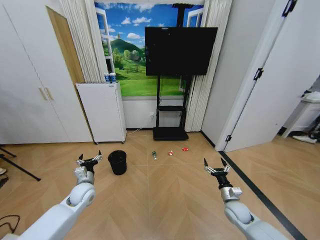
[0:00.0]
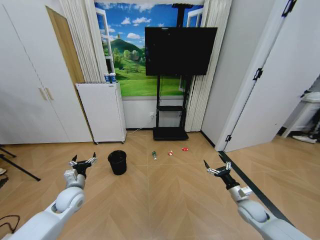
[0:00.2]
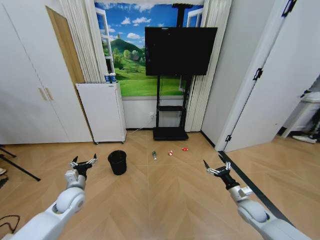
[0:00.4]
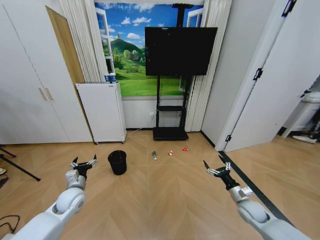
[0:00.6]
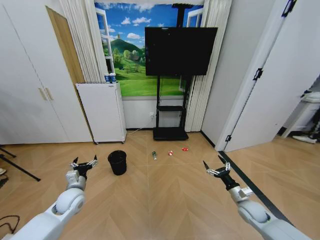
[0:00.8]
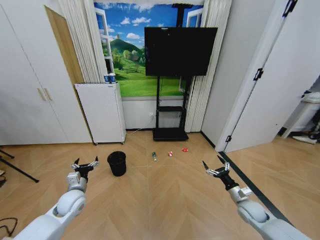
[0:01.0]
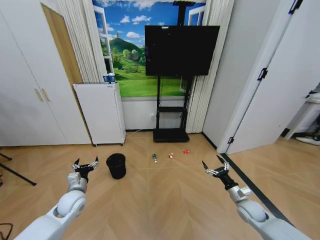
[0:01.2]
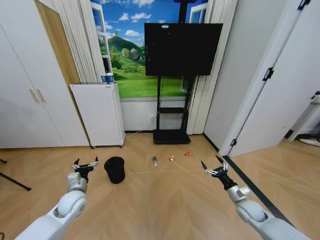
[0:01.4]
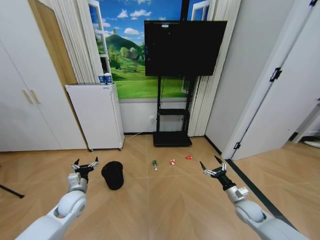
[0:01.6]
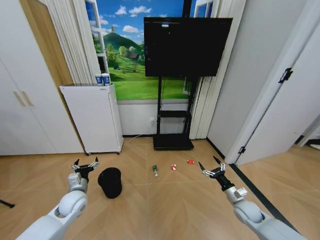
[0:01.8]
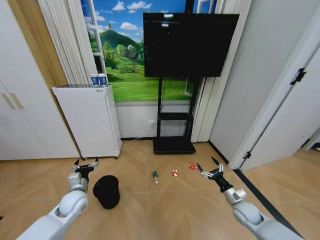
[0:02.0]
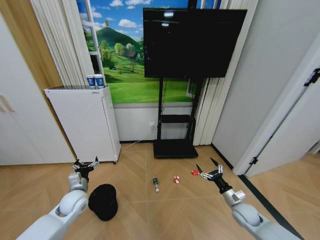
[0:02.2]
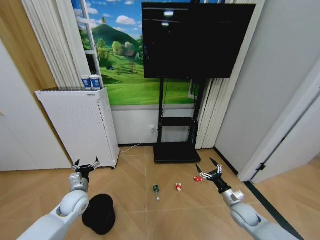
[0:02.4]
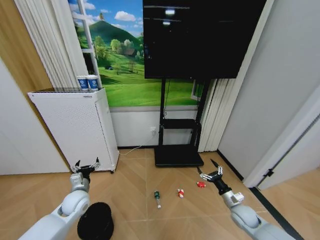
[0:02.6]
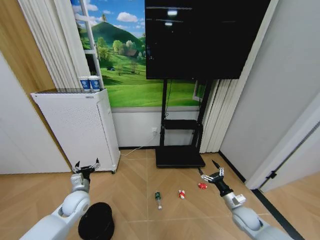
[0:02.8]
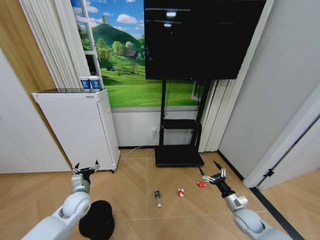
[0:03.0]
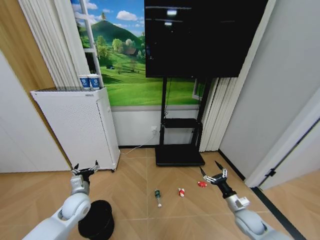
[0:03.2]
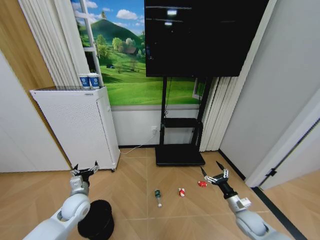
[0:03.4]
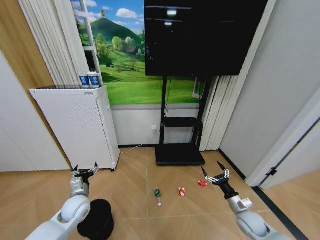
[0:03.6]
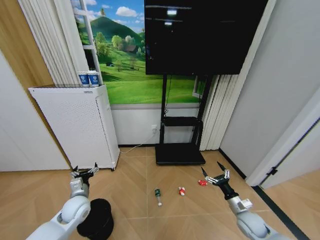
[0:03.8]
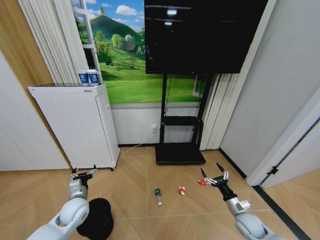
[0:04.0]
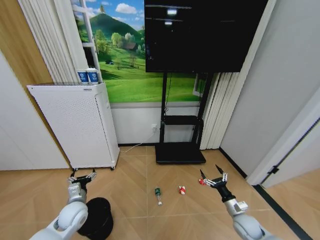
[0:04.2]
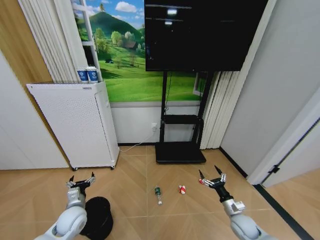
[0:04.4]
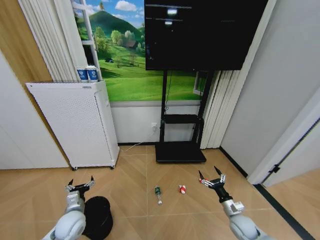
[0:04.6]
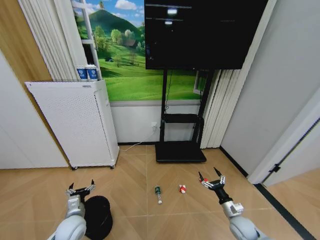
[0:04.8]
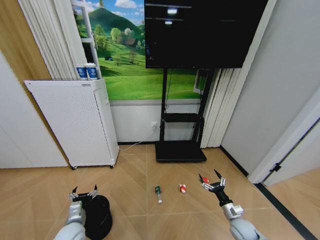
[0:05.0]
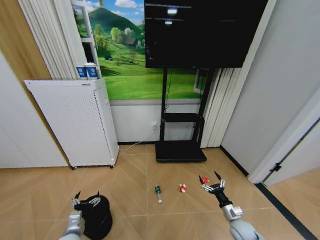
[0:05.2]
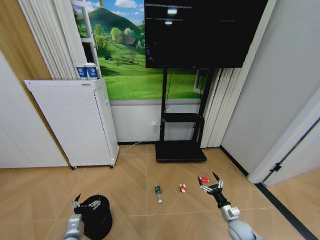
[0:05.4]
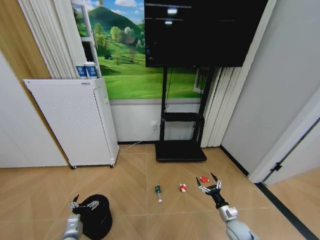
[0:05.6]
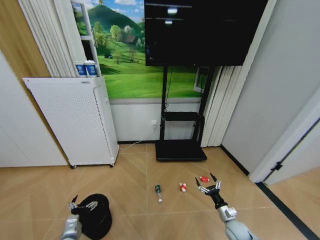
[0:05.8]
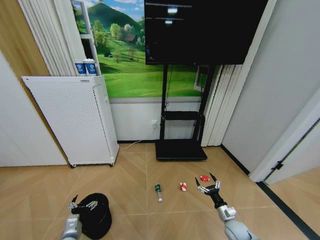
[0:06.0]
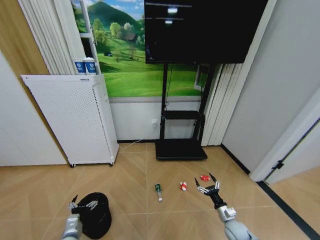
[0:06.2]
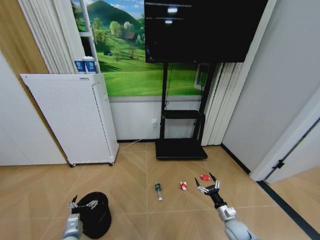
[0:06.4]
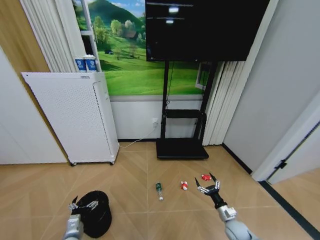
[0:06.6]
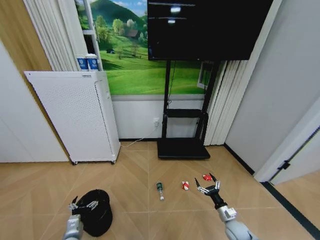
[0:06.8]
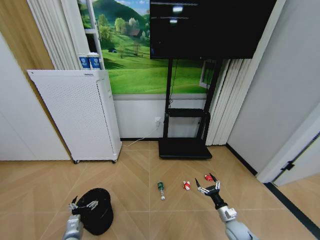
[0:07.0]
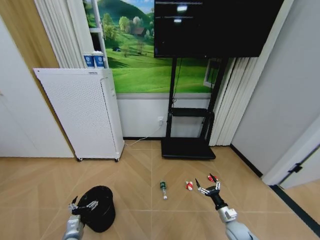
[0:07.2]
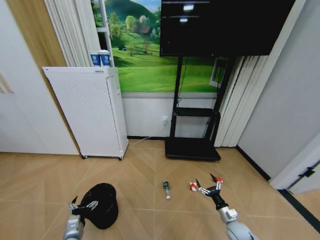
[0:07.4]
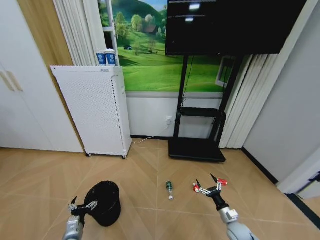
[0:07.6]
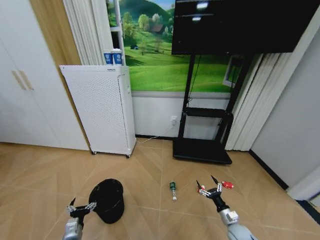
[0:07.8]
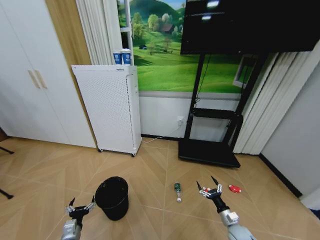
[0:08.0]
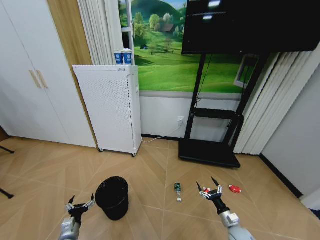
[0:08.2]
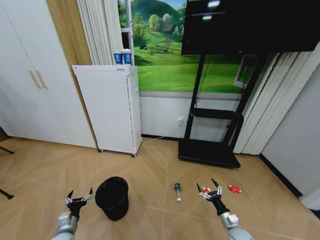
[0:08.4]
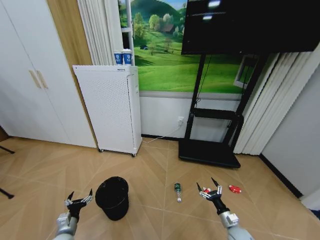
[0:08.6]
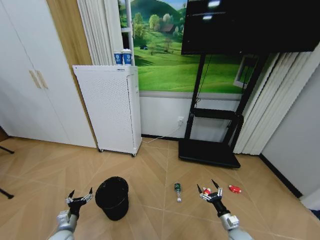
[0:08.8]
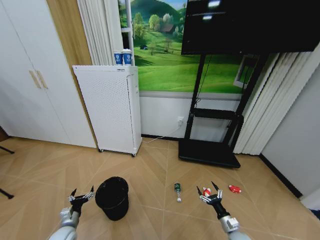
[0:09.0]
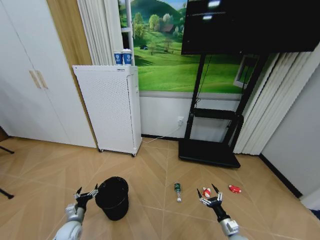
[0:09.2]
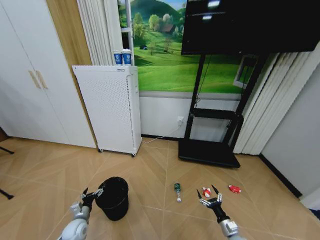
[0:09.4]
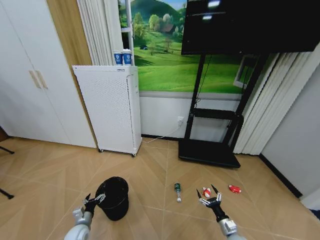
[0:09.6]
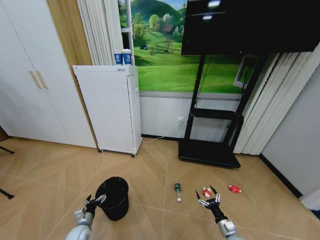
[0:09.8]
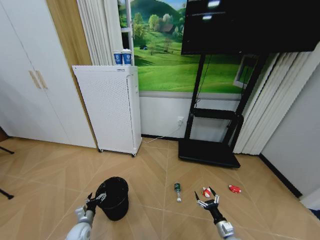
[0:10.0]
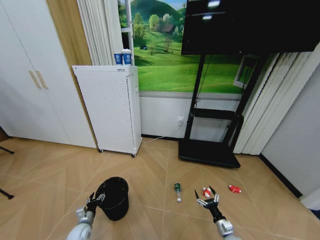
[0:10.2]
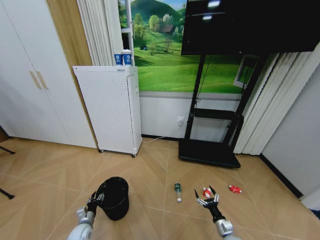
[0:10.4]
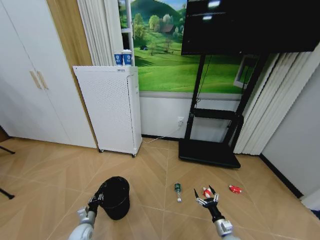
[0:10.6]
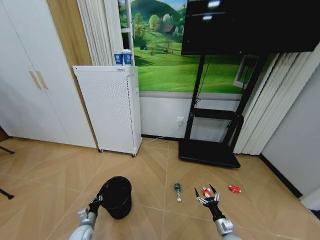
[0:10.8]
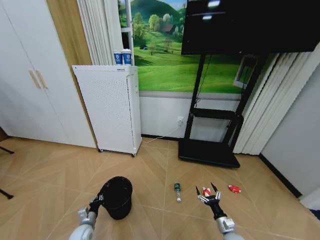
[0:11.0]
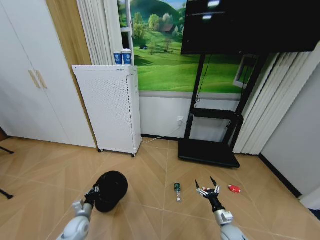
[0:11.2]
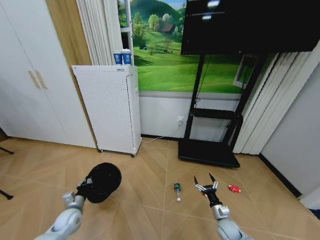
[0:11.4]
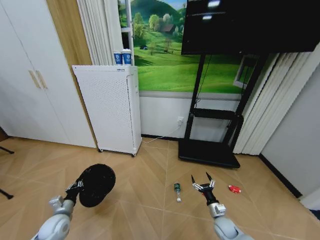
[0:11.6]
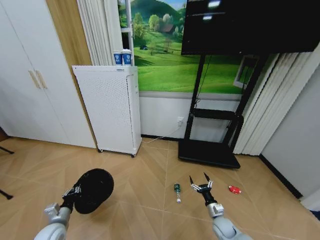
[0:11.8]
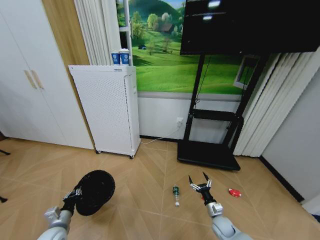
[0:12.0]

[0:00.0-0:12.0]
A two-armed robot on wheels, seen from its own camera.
Task of the whole recording: Pick up the trash bin and place the garbage on the floor into it.
0:03.0 to 0:04.4: The left gripper changes place by some 5 cm.
0:04.4 to 0:06.0: The right gripper goes roughly 5 cm downward; the left gripper travels backward and downward by approximately 10 cm.
0:07.6 to 0:09.0: The left gripper goes roughly 5 cm to the left.
0:09.0 to 0:10.4: The left gripper moves downward, some 5 cm, and closes its fingers.
0:10.4 to 0:12.0: The left gripper shifts some 15 cm upward and to the left, and closes. The right gripper goes about 5 cm forward.

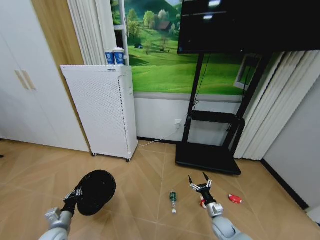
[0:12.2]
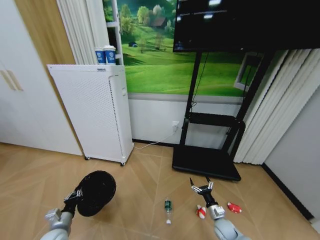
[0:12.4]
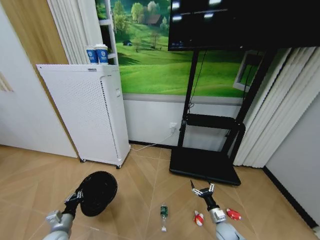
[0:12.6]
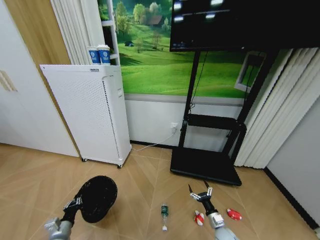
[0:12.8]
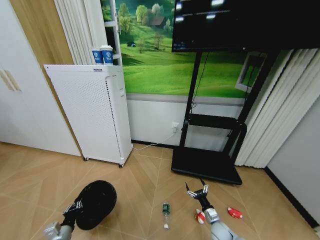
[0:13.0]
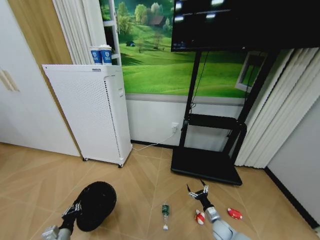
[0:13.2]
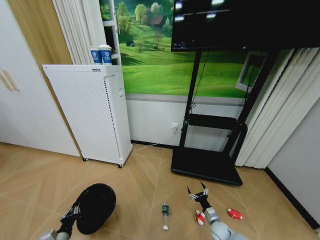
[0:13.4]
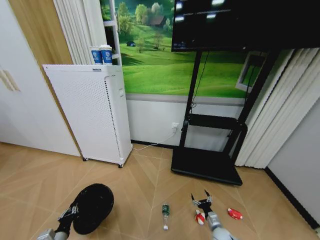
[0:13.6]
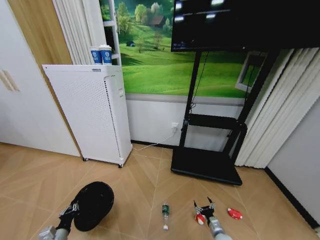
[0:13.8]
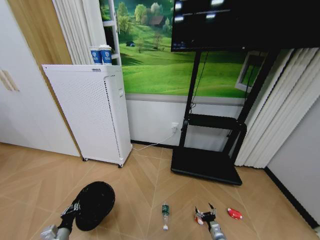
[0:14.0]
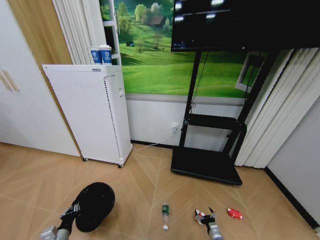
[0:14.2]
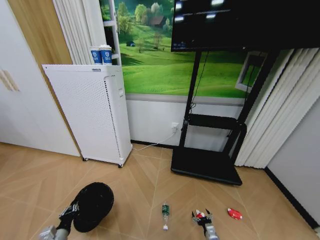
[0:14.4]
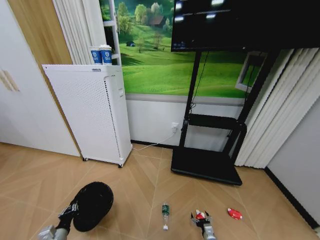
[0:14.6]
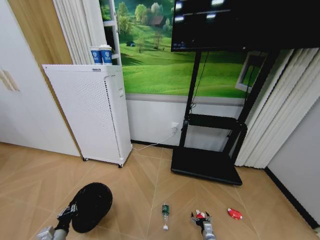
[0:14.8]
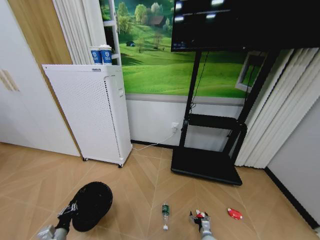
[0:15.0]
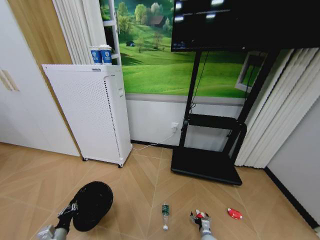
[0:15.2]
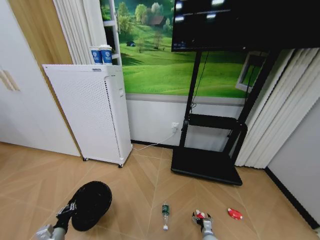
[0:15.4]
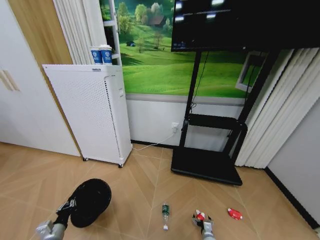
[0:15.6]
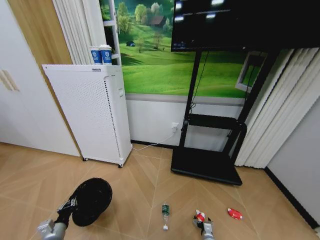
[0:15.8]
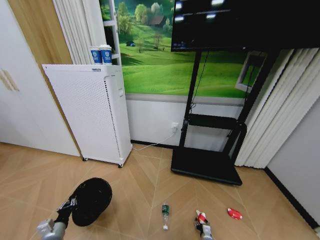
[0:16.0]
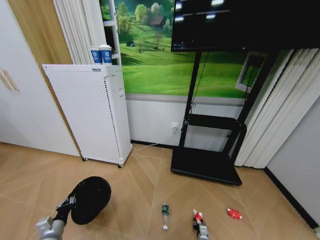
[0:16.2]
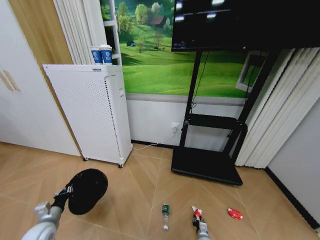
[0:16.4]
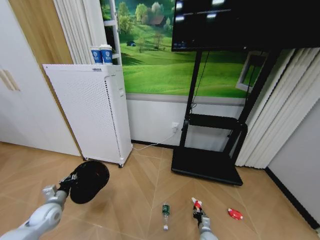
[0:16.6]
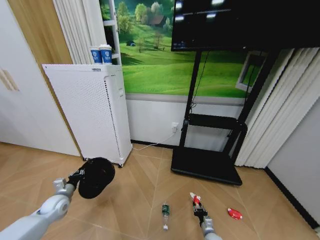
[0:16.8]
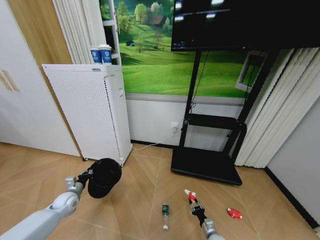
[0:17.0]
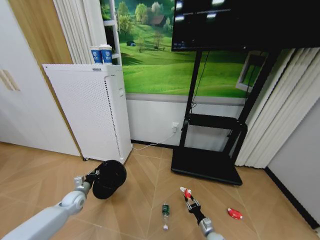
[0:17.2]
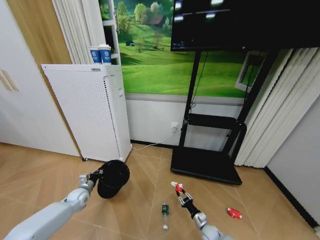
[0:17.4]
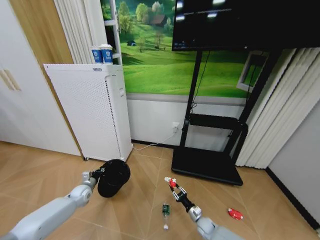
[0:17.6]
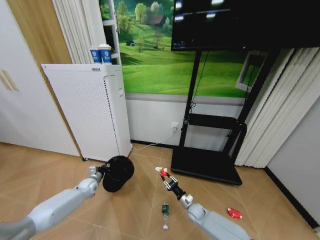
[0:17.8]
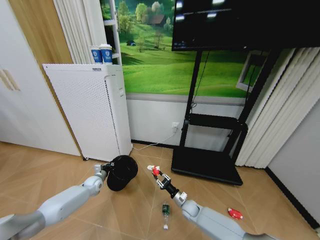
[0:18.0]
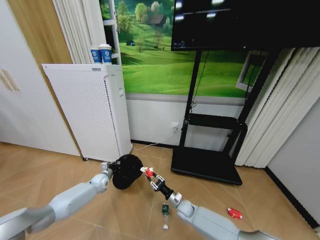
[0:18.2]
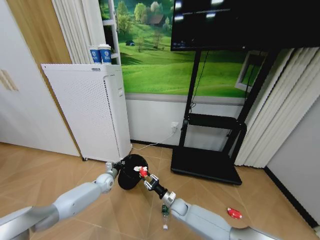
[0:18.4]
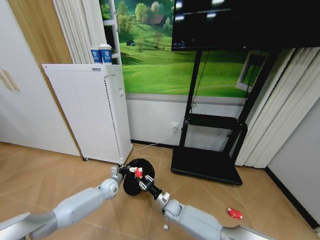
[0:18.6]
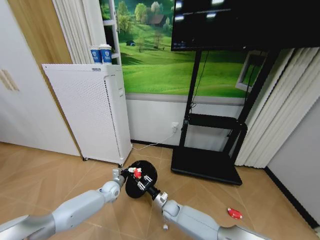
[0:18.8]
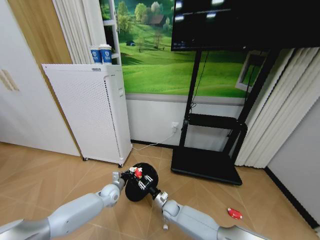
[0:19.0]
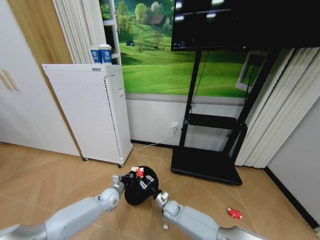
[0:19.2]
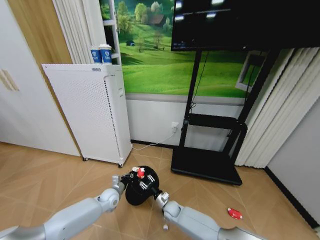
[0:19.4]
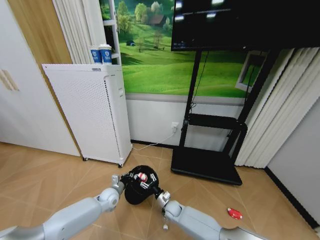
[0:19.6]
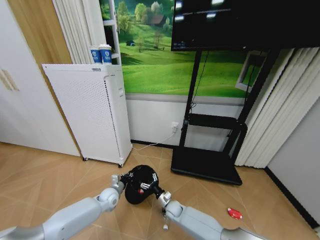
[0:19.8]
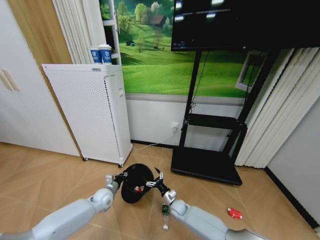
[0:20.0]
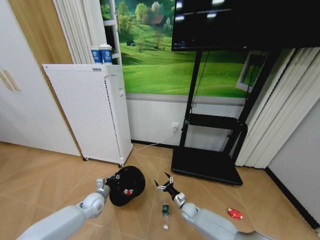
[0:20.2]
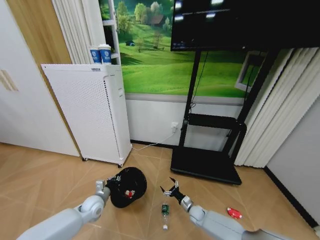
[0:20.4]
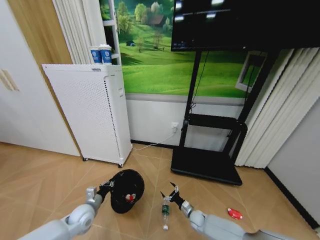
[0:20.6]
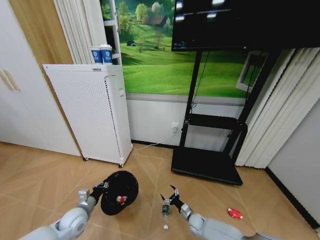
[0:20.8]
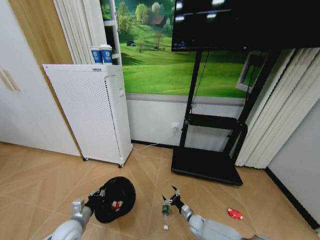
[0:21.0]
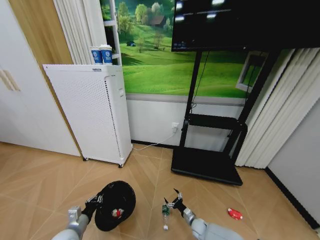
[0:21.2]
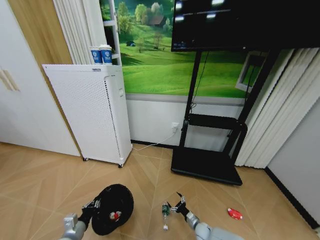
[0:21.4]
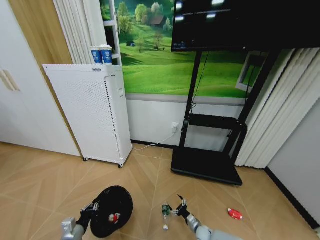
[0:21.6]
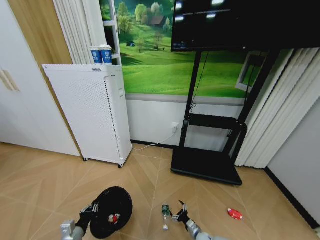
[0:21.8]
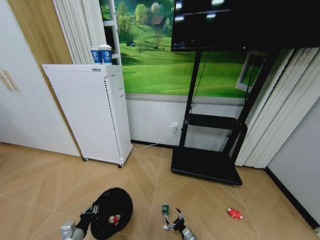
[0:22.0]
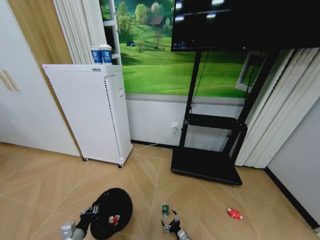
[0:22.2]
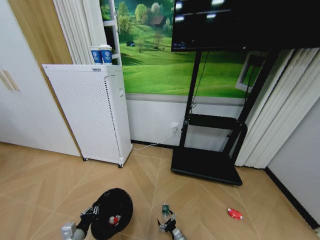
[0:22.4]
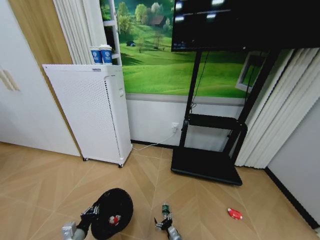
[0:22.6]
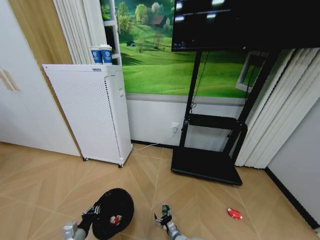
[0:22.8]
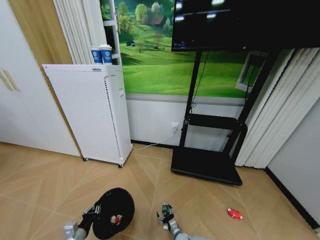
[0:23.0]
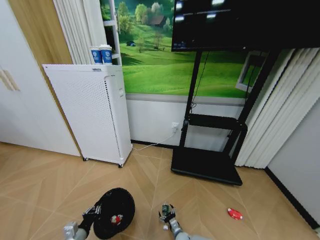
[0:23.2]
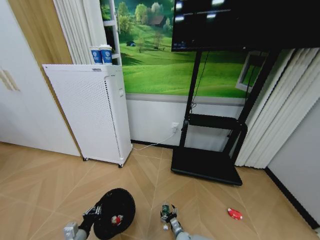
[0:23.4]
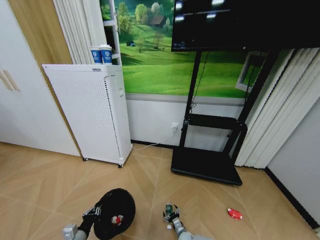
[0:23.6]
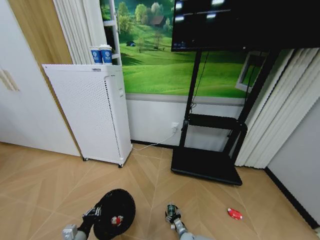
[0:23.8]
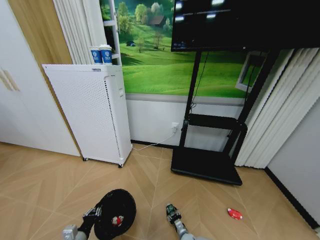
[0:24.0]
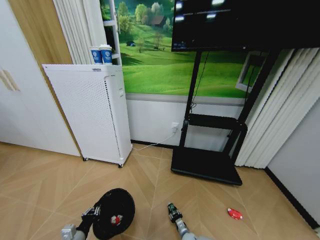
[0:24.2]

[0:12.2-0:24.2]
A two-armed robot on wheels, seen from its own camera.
Task of the whole recording: Pick up the trash bin and place the garbage on the floor into it.
0:12.2 to 0:13.8: The right gripper moves downward and backward, about 10 cm; the left gripper travels backward by roughly 5 cm.
0:13.8 to 0:15.2: The right gripper moves to the left and downward, some 5 cm.
0:15.2 to 0:16.6: The right gripper closes its fingers. Meanwhile the left gripper moves forward, upward and to the left, about 15 cm.
0:16.6 to 0:18.2: The left gripper moves forward and to the right, roughly 25 cm, while the right gripper moves upward, to the left and forward, about 20 cm.
0:18.2 to 0:19.8: The left gripper moves to the right and backward, roughly 15 cm, while the right gripper heads to the left, covering roughly 5 cm, and opens up.
0:19.8 to 0:21.2: The right gripper moves to the right, downward and backward, some 20 cm, while the left gripper travels backward and to the left by approximately 20 cm.
0:21.2 to 0:22.6: The right gripper heads to the left and backward, covering some 15 cm, while the left gripper changes place by approximately 5 cm.
0:22.6 to 0:24.2: The right gripper travels to the right by some 5 cm, and closes its fingers.
